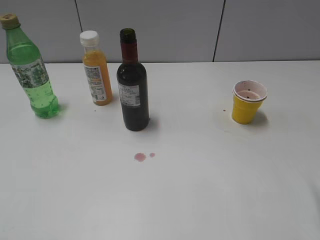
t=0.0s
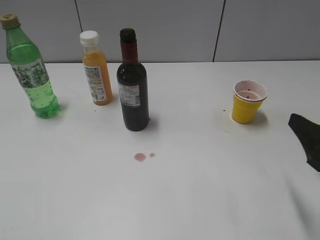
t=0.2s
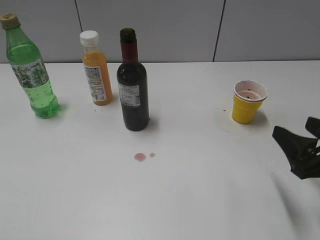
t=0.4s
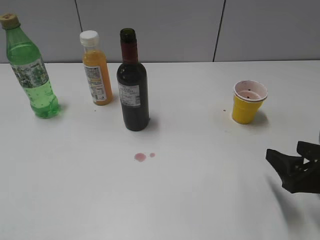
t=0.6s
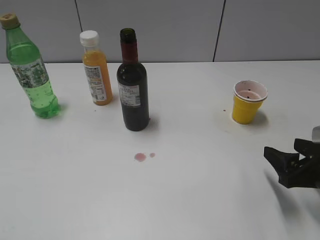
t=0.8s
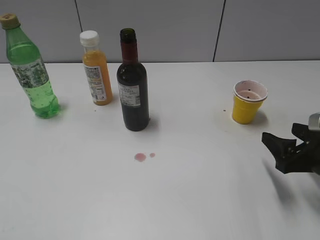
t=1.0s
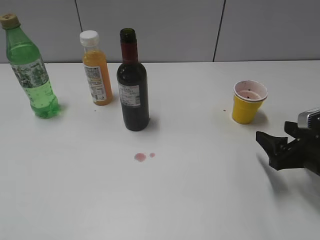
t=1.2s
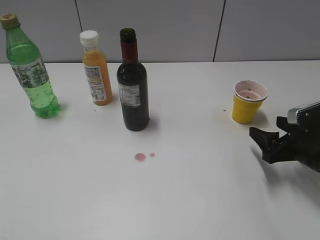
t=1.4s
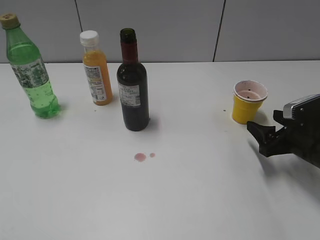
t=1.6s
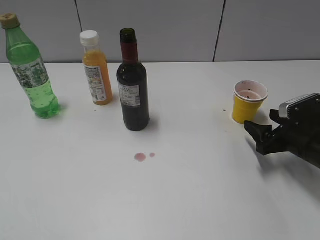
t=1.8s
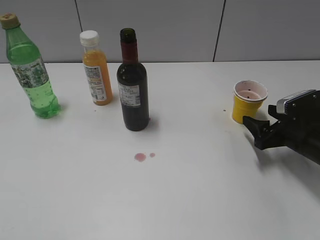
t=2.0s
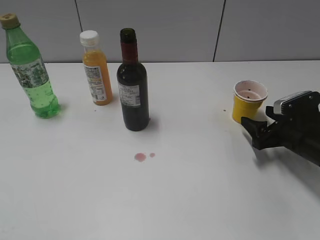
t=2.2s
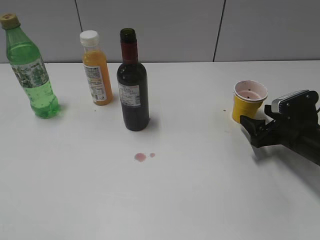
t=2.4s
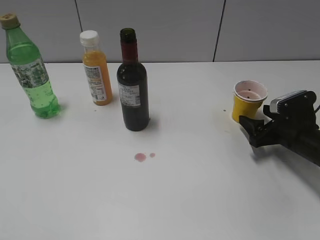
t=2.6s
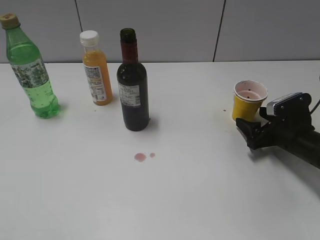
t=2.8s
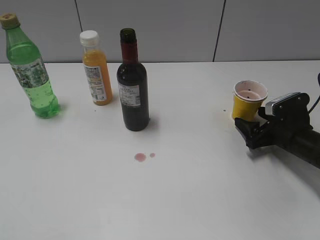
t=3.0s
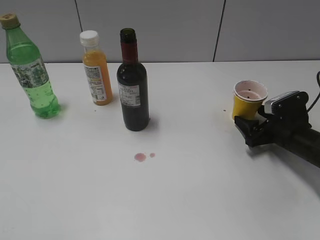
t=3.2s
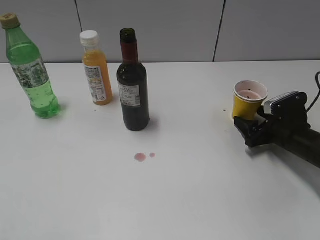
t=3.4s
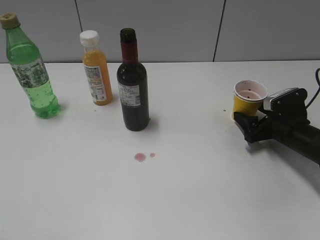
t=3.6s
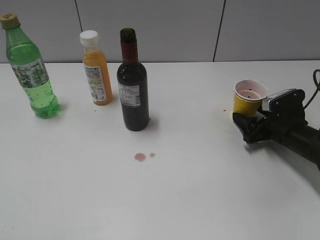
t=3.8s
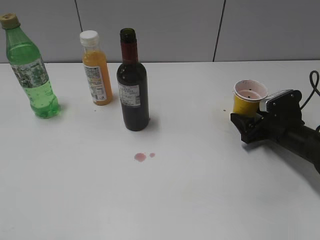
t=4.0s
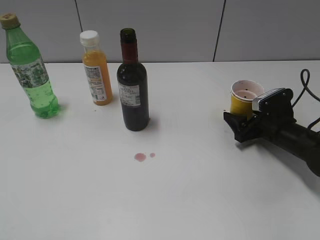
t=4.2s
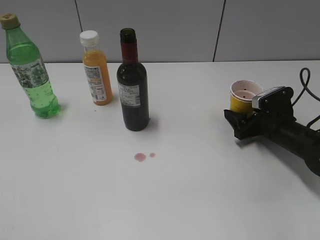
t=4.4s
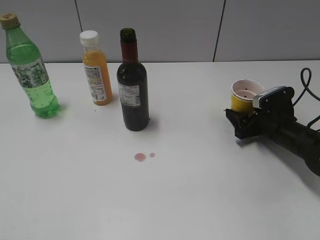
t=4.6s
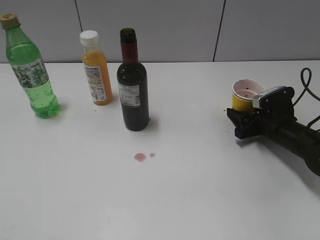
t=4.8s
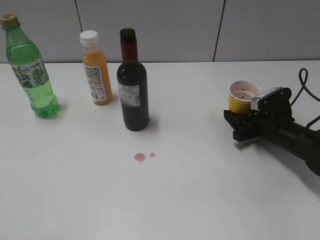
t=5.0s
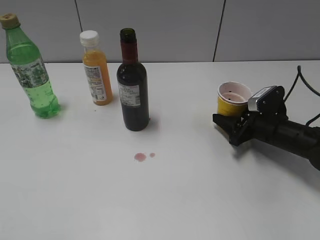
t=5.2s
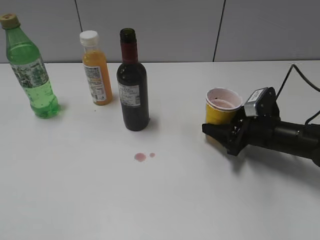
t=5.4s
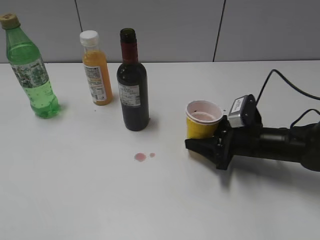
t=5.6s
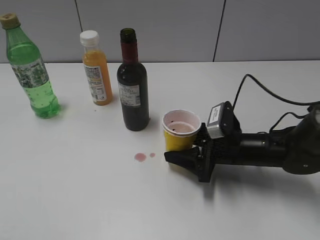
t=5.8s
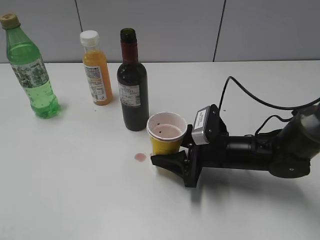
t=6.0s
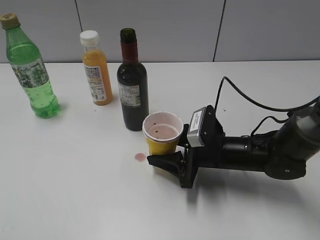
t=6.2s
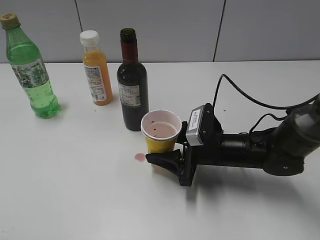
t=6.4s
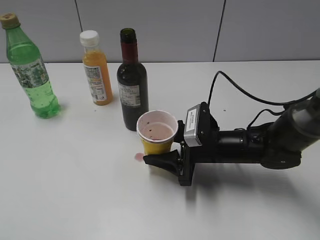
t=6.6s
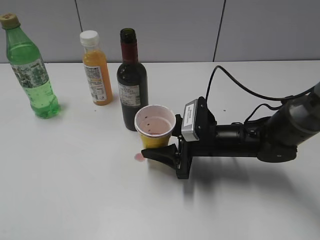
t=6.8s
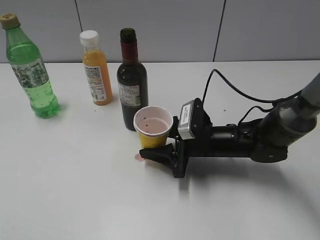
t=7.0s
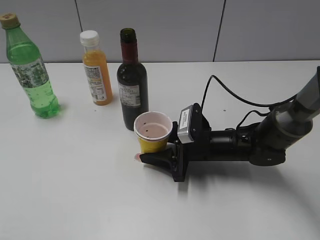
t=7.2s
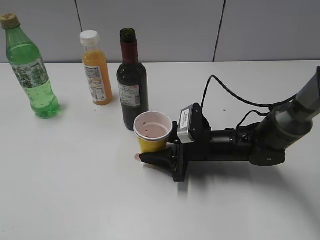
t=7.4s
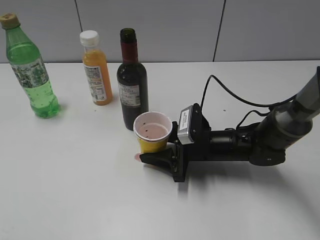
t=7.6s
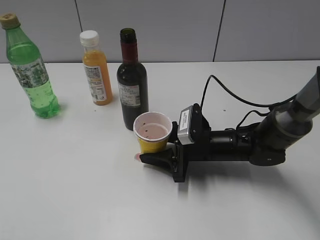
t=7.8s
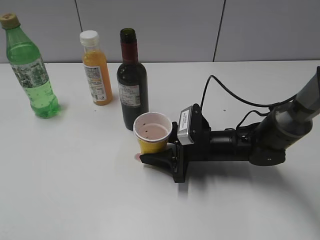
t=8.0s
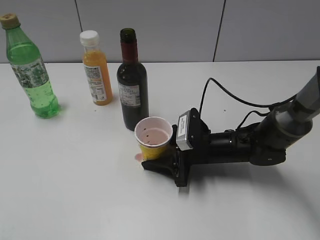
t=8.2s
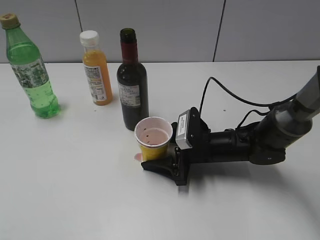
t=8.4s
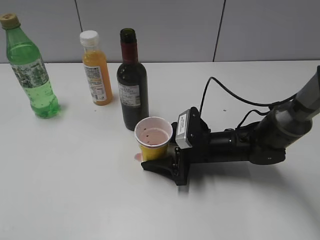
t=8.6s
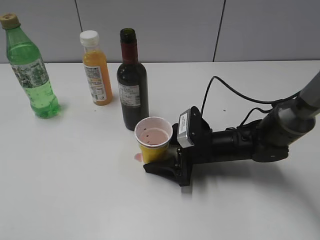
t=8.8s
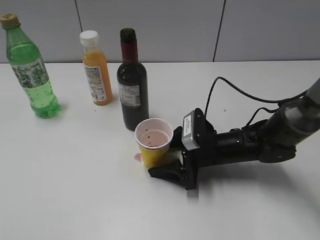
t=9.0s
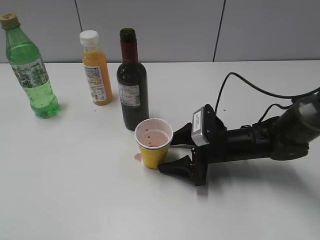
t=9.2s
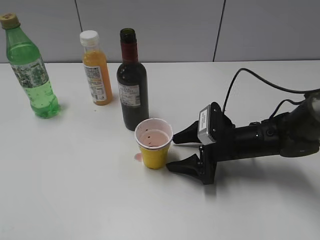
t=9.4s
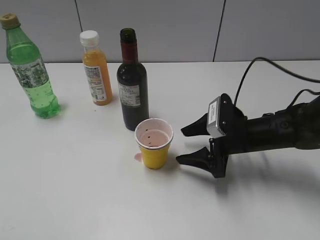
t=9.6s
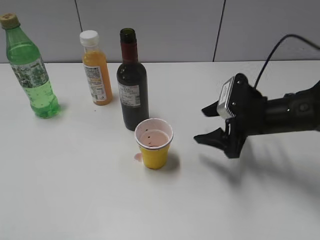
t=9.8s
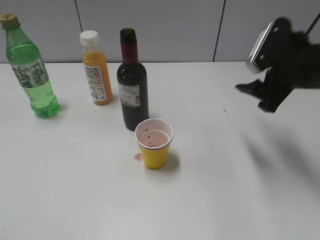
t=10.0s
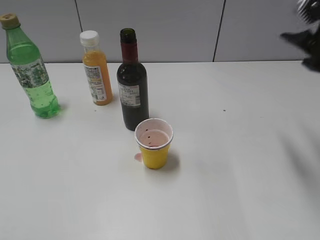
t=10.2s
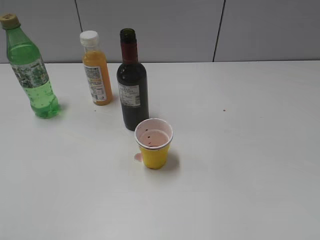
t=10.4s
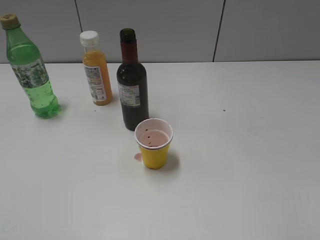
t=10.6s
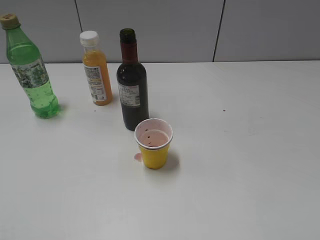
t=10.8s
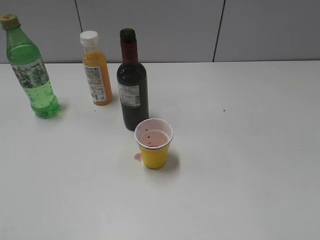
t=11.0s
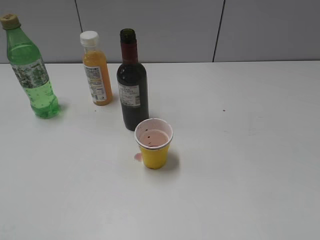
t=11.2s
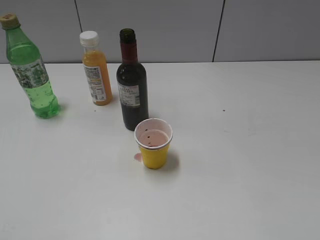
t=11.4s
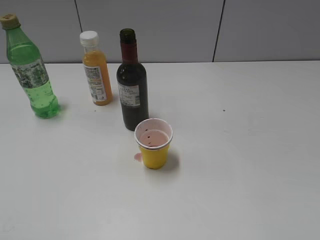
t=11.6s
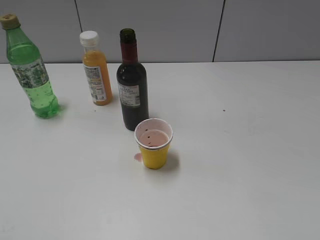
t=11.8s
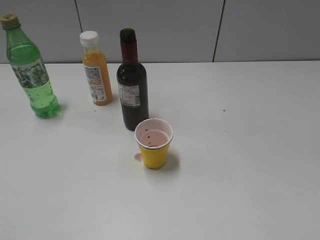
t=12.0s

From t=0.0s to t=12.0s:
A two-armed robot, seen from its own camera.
Step, from t=0.0s to t=4.8s: Grasp the yellow paper cup with right gripper.
Step, from t=5.0s to t=9.4s: Place the yellow paper cup on the table with right gripper.
From t=0.0s to t=1.6s: The right gripper moves forward and downward, approximately 15 cm.
From t=1.6s to t=3.0s: The right gripper moves some 5 cm.
From t=3.0s to t=4.4s: The grippers move only a little.
From t=4.4s to t=6.0s: The right gripper goes approximately 15 cm to the left and backward, and closes its fingers.
From t=6.0s to t=7.6s: The grippers make only small movements.
From t=7.6s to t=9.0s: The right gripper opens.
From t=9.0s to t=10.4s: The right gripper travels upward and to the right by some 40 cm.

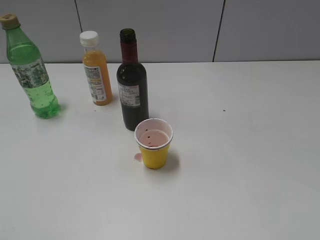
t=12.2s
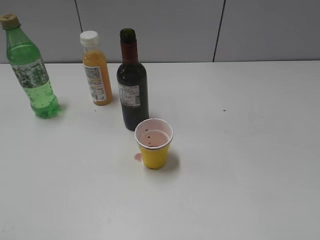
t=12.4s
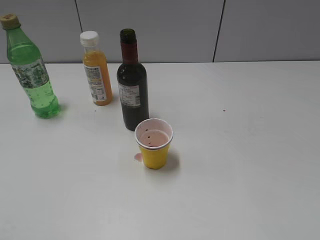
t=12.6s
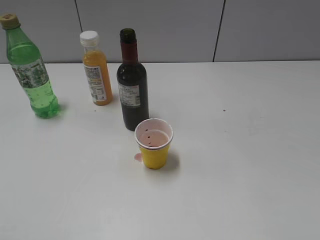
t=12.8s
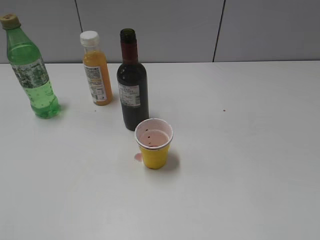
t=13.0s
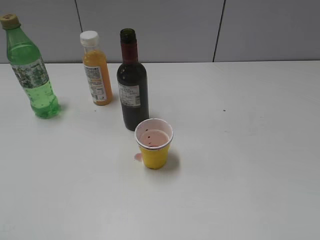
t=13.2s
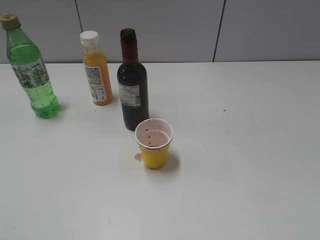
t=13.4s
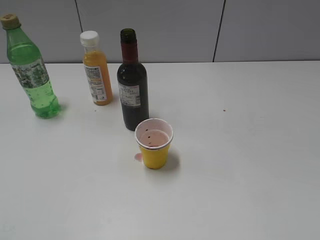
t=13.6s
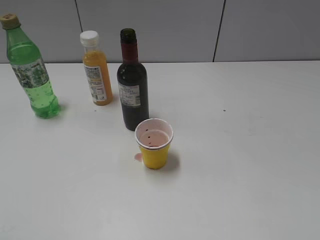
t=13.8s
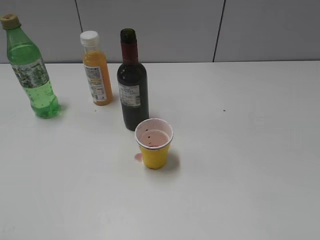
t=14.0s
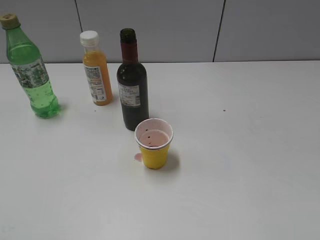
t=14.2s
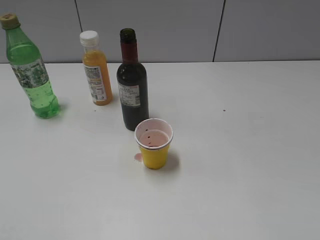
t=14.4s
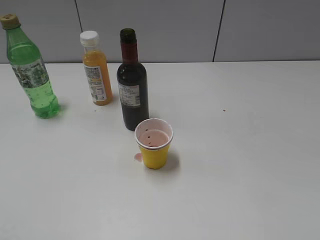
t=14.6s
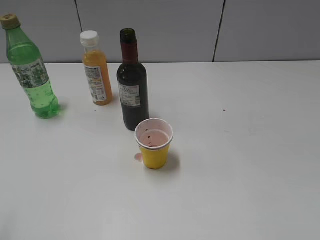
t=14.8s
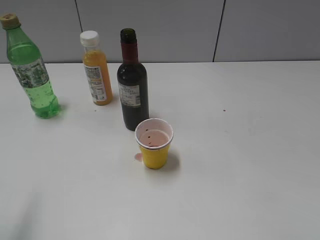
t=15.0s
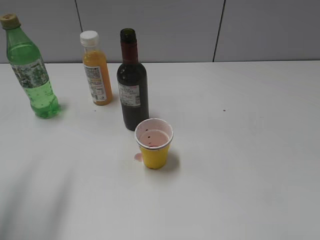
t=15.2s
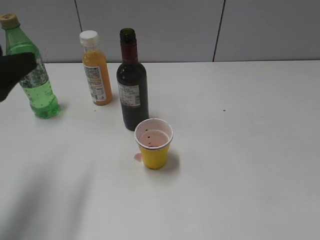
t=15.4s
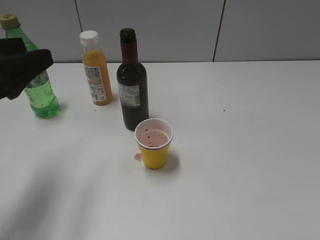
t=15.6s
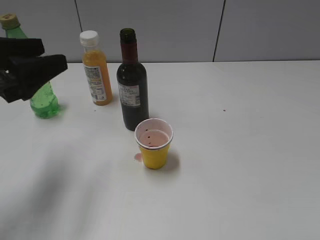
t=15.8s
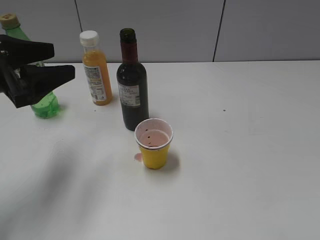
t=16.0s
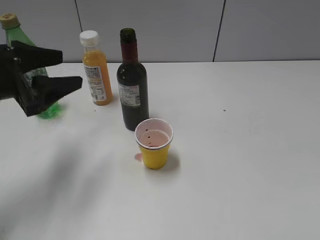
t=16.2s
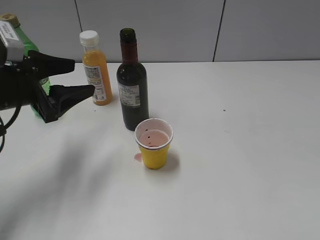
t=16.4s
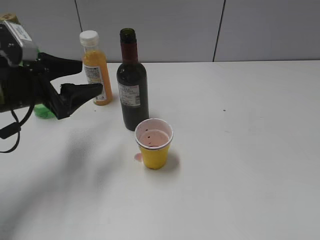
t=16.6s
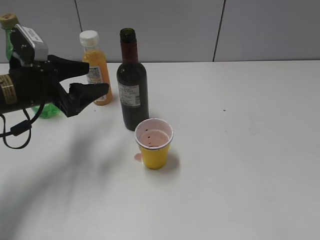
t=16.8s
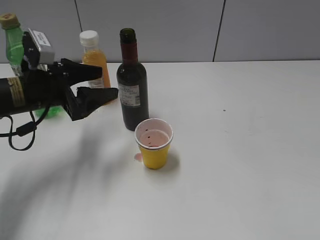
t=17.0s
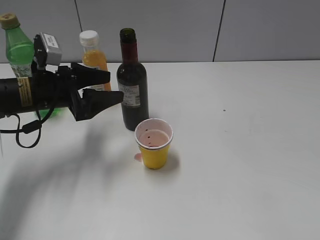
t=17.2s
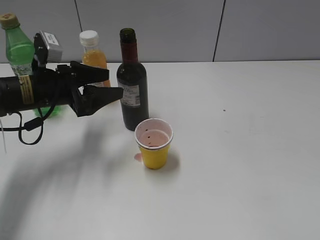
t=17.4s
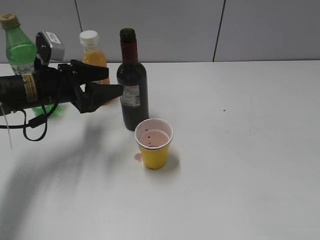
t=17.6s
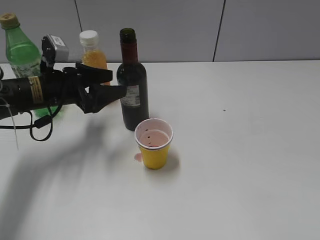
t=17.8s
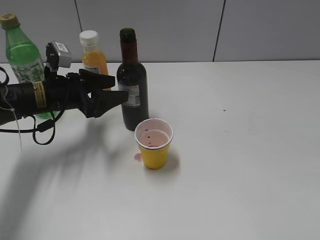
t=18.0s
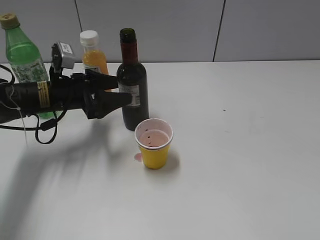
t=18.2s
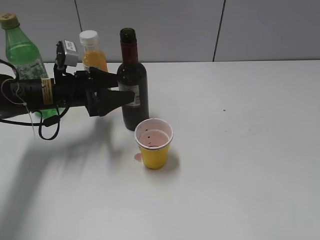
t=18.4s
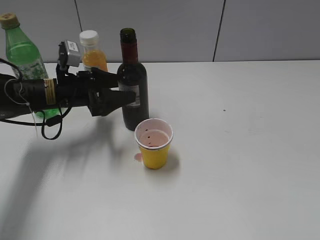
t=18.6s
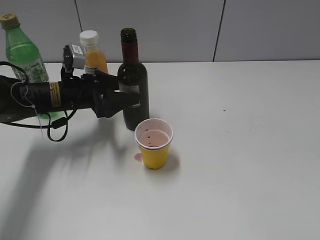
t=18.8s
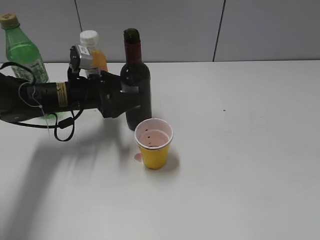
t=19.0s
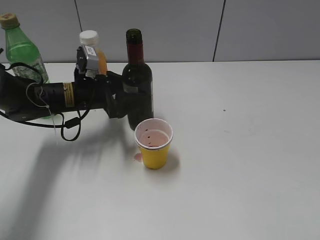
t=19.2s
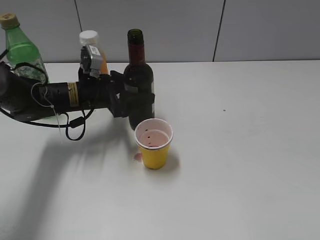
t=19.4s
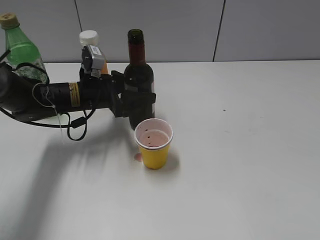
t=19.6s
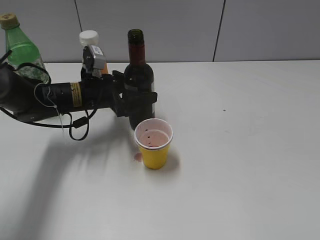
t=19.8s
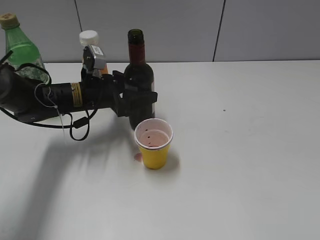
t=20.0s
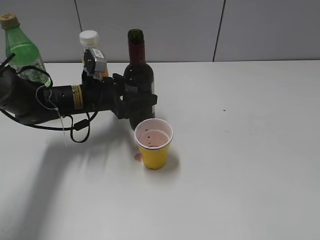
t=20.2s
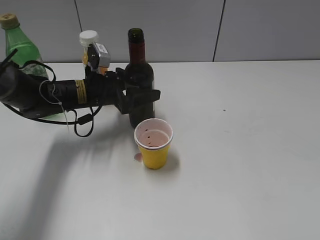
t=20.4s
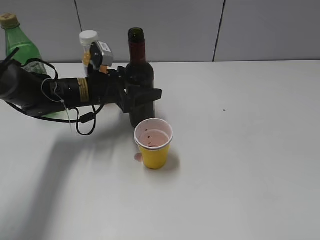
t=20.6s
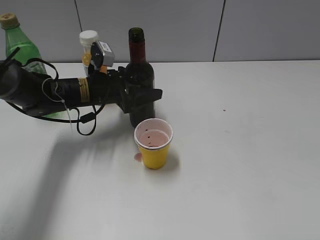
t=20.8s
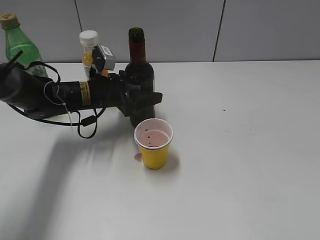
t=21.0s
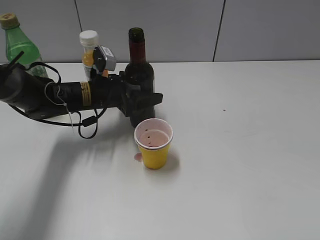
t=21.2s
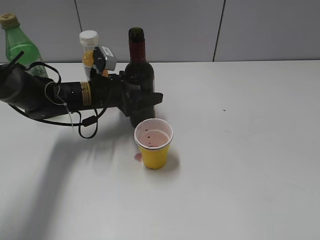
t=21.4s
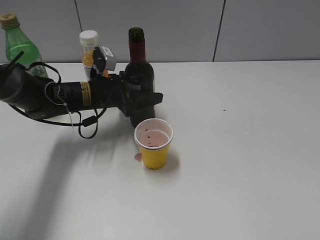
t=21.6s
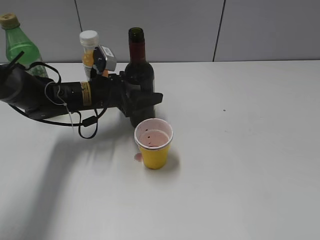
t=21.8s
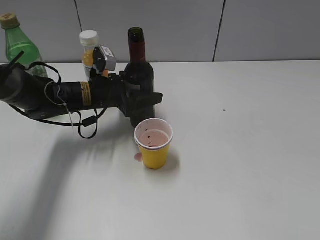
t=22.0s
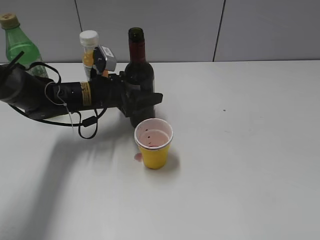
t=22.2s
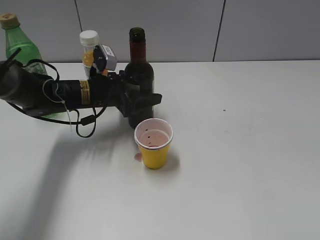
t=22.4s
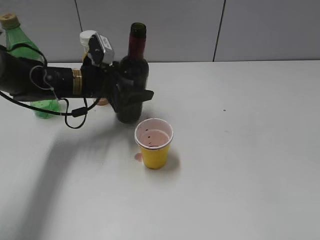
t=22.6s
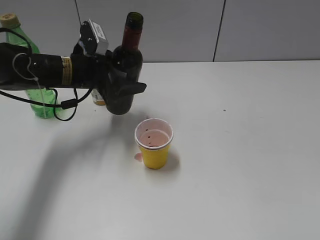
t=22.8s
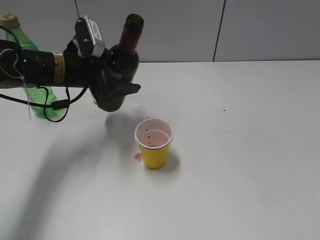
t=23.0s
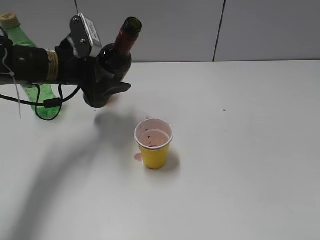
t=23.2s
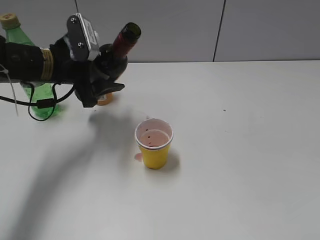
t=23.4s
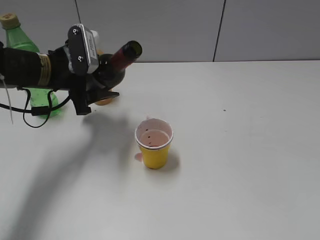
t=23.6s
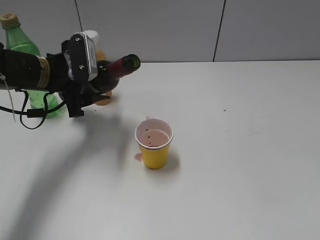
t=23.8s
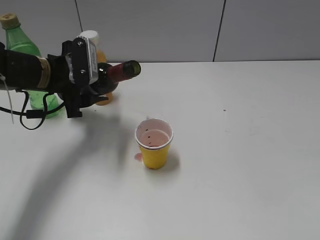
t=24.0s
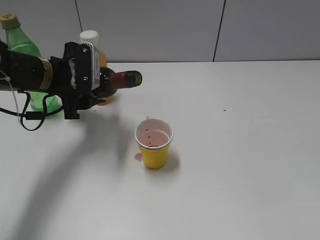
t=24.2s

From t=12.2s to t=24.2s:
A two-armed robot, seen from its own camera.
Step, from t=12.2s to t=22.2s: Grasp the bottle with red wine with left gripper.
From t=12.2s to t=13.8s: Both grippers stay put.
From t=13.8s to t=15.2s: The left gripper moves forward, about 15 cm, and opens its fingers.
From t=15.2s to t=16.6s: The left gripper goes approximately 20 cm forward, downward and to the right.
From t=16.6s to t=18.2s: The left gripper shifts roughly 10 cm forward and downward.
From t=18.2s to t=19.8s: The left gripper moves approximately 5 cm.
From t=19.8s to t=22.6s: The grippers make only small movements.
From t=22.6s to t=24.2s: The left gripper shifts by roughly 5 cm.
